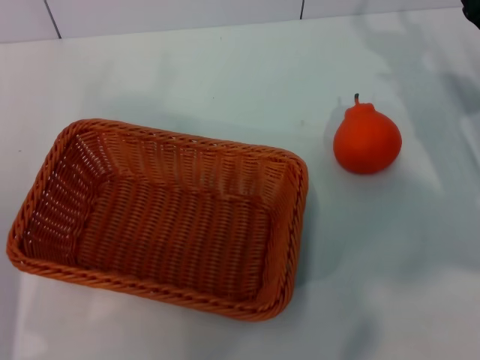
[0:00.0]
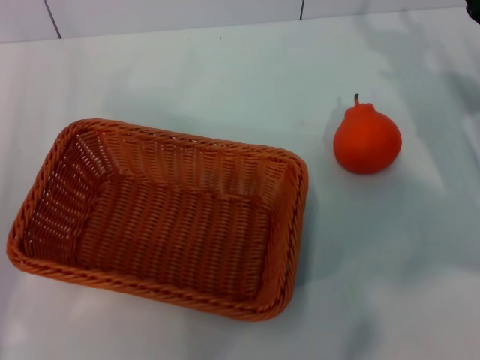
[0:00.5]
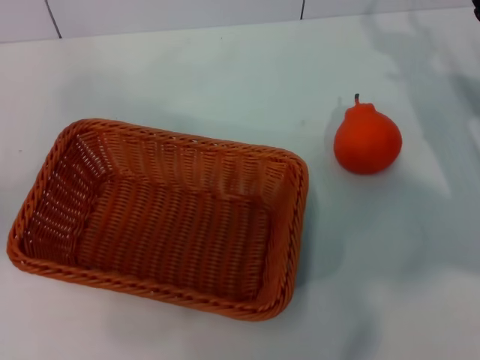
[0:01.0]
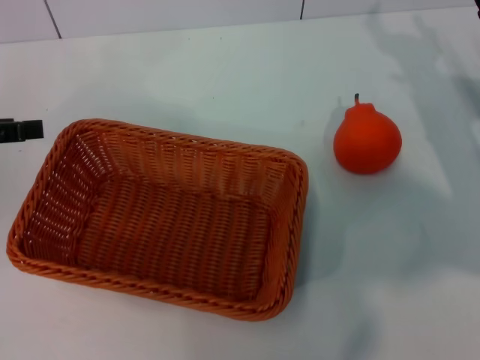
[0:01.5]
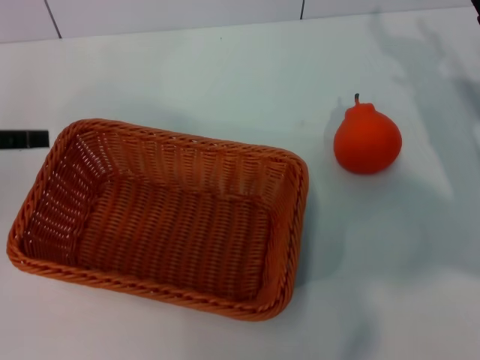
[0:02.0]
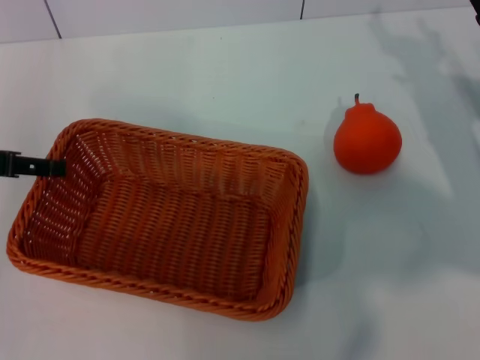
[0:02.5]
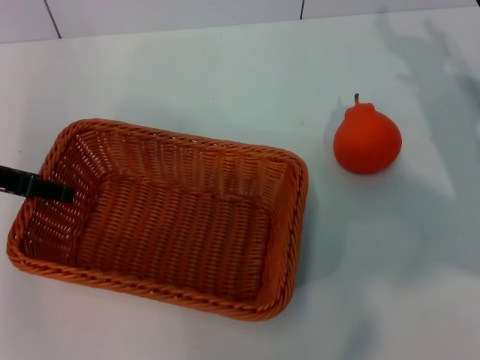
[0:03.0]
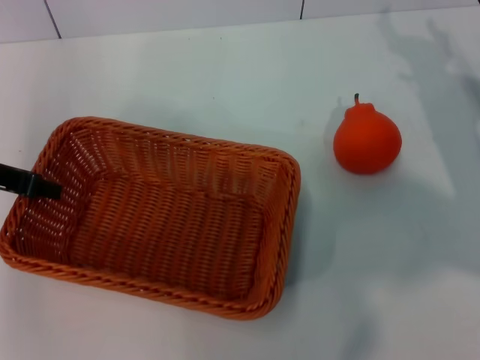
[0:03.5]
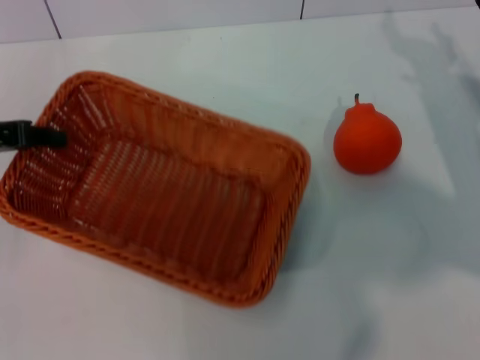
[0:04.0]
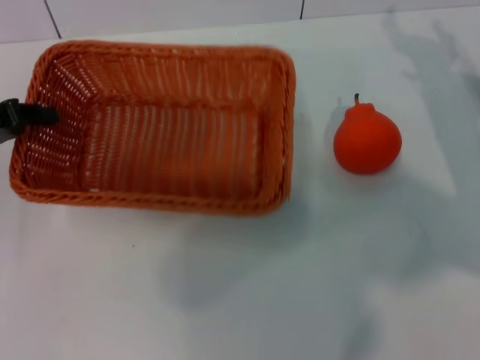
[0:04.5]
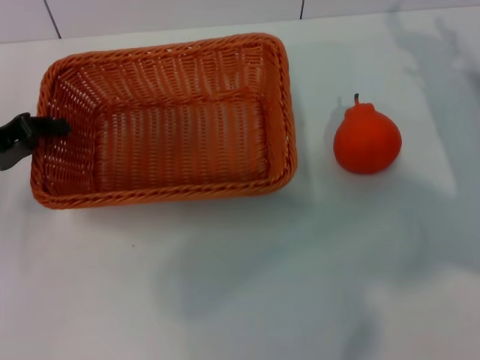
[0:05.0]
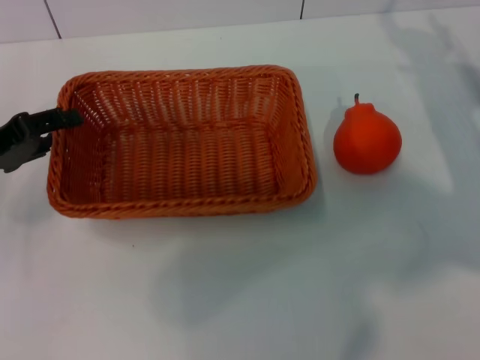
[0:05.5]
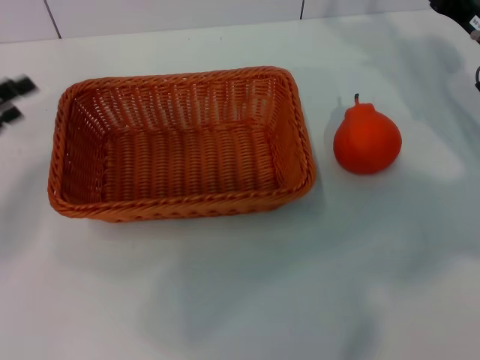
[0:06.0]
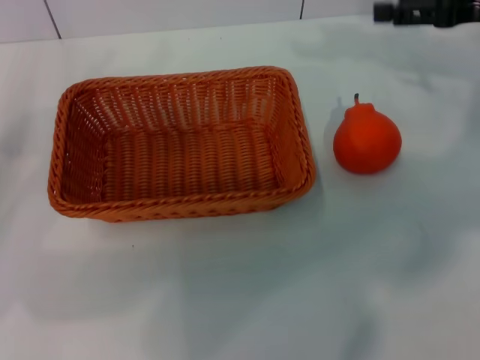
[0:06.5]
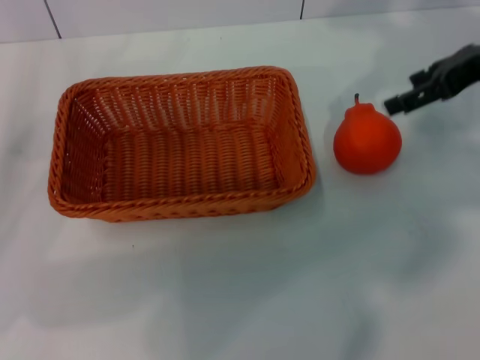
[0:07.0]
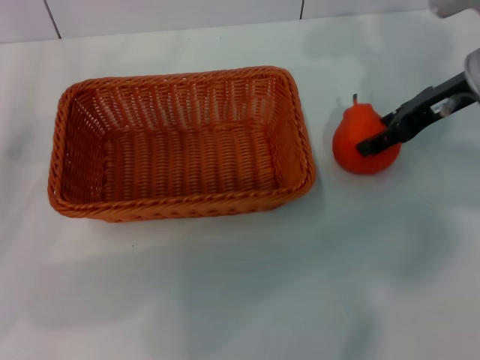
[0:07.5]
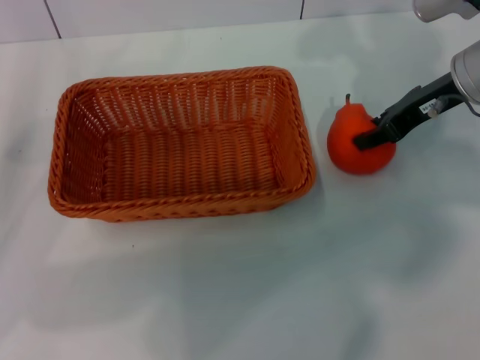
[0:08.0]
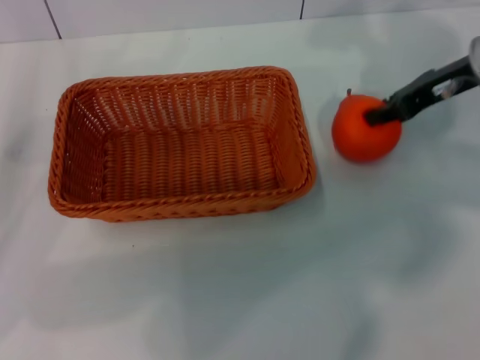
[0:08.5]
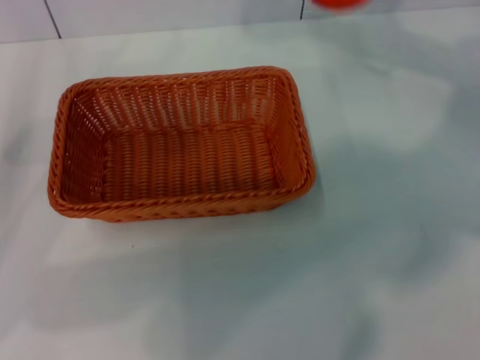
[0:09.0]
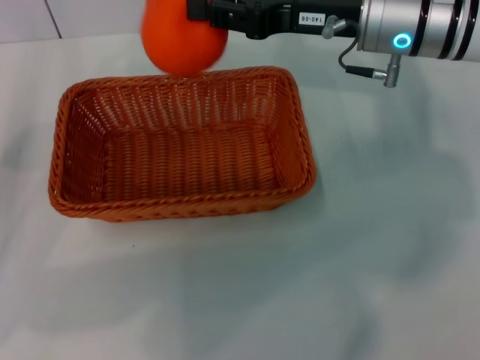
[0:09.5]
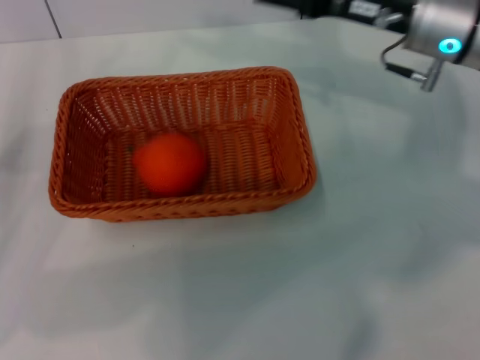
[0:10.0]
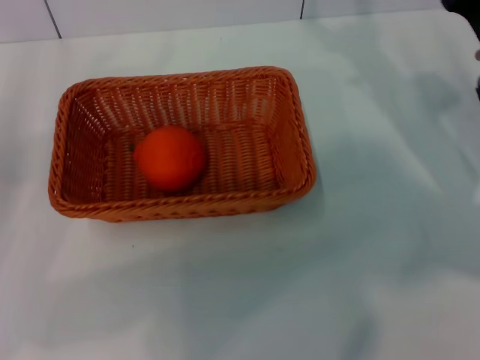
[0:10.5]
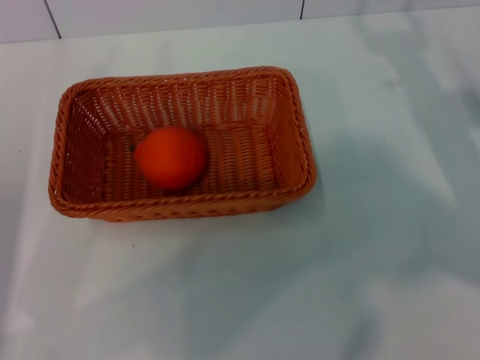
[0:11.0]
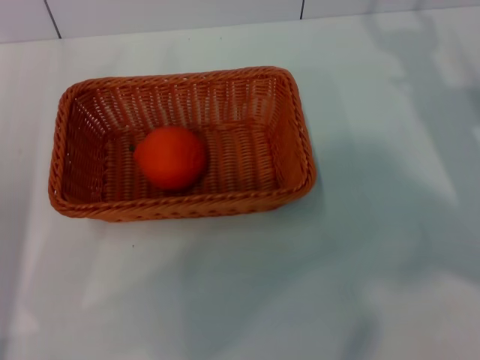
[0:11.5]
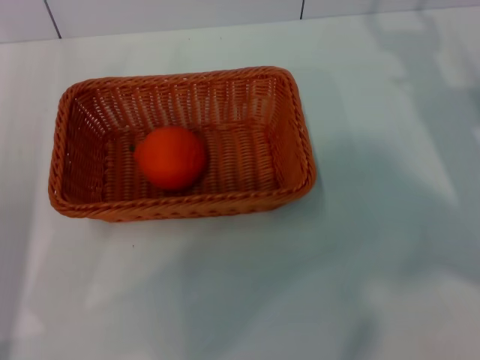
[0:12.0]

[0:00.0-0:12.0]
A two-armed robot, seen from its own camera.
Task of the whole recording: the left gripper pick up the yellow basket and place it horizontally in the middle of the table, the right gripper pick up the orange and place it into the yellow basket.
Step, 0:00.0 to 0:03.5: Pick up the light basket with the left gripper.
Step, 0:04.0 to 0:05.5: Place the light basket in the center of view with the left gripper.
Step, 0:06.0 to 0:08.5: Pick up the orange with the right gripper.
Step, 0:09.0 to 0:09.5: Place the orange into the light basket with the right gripper.
0:00.0 to 0:02.0: The left gripper shifts roughly 15 cm upward and forward.
0:02.0 to 0:04.0: The left gripper closes its fingers.
0:04.0 to 0:06.0: The left gripper is displaced downward by approximately 5 cm, and opens its fingers.
0:06.0 to 0:08.0: The right gripper is displaced upward by about 5 cm, and closes.
0:08.0 to 0:10.0: The right gripper closes and opens again.
0:10.0 to 0:12.0: The right gripper moves to the right, downward and backward, approximately 15 cm, and opens up. Meanwhile the left gripper changes place by roughly 5 cm.
